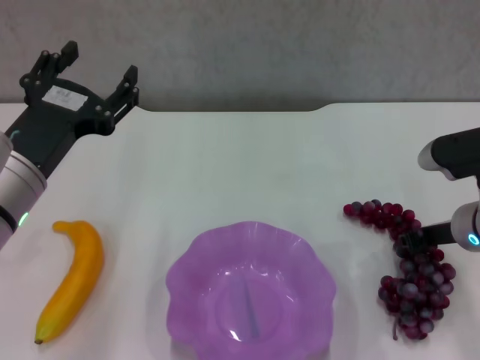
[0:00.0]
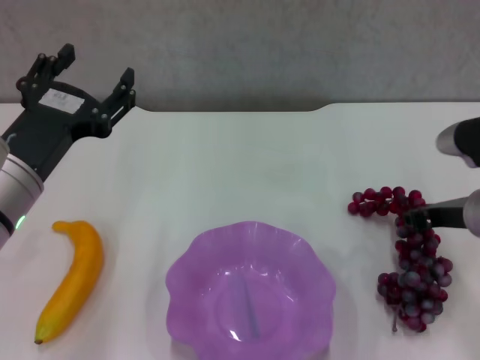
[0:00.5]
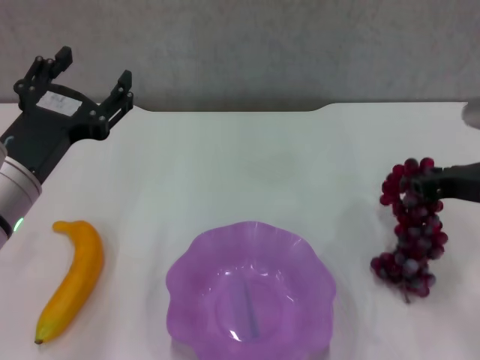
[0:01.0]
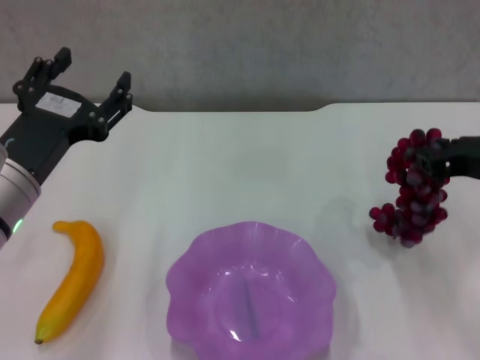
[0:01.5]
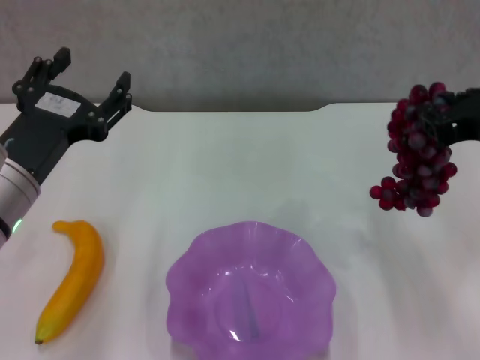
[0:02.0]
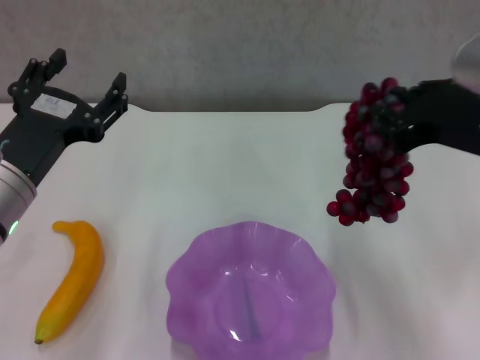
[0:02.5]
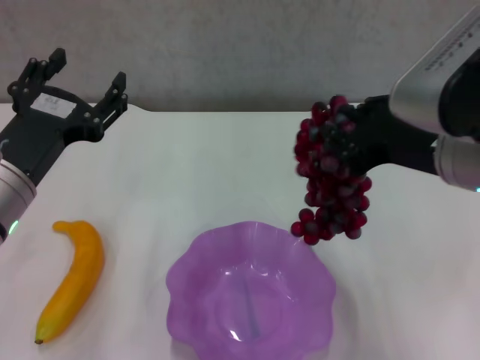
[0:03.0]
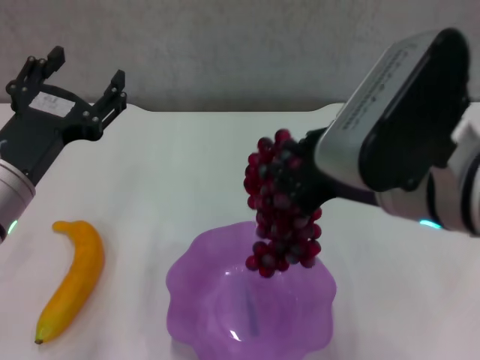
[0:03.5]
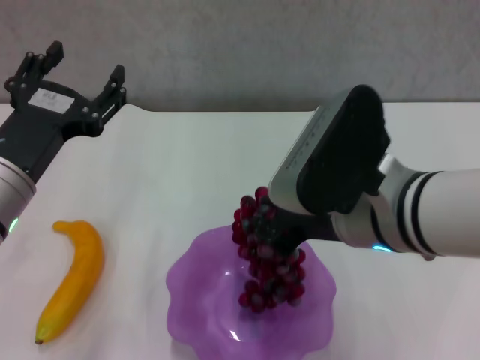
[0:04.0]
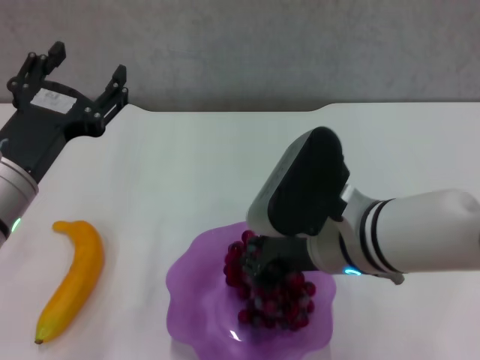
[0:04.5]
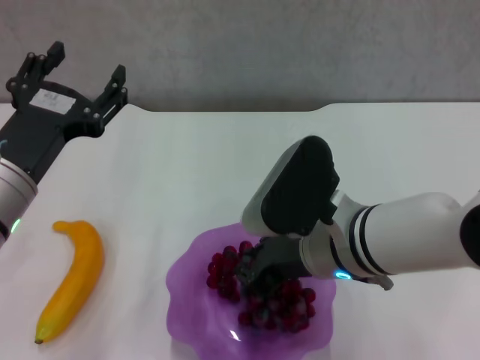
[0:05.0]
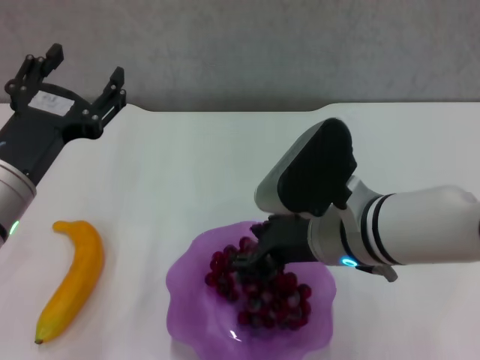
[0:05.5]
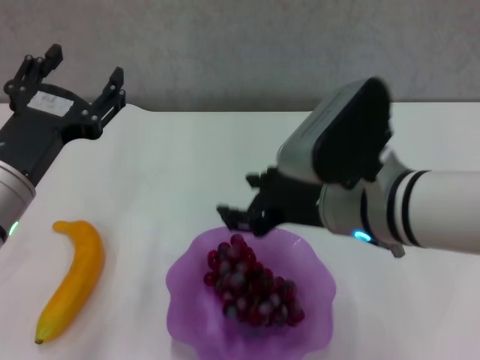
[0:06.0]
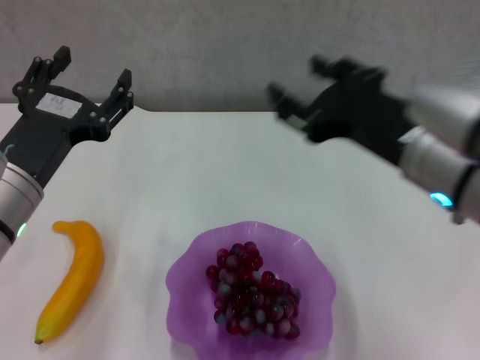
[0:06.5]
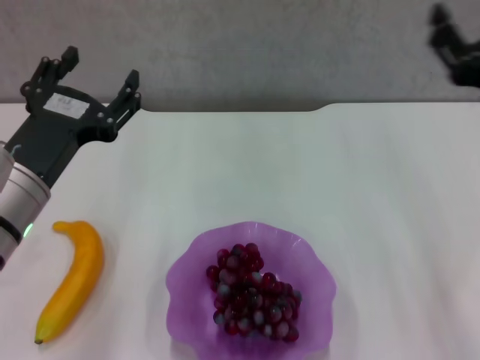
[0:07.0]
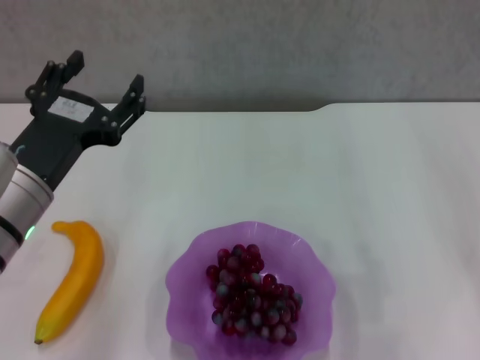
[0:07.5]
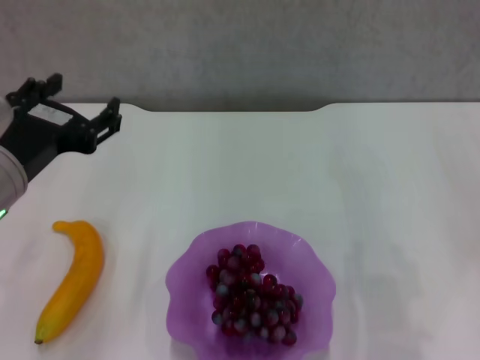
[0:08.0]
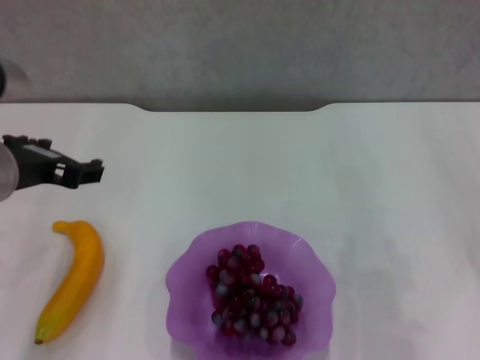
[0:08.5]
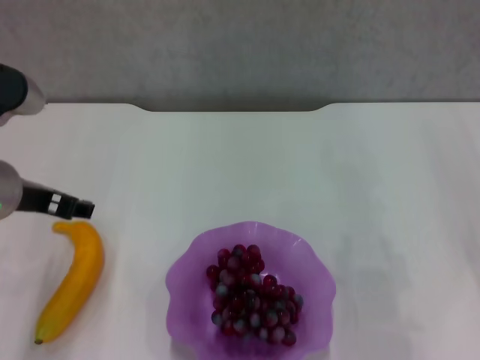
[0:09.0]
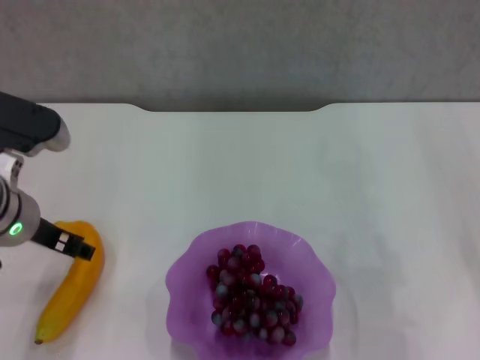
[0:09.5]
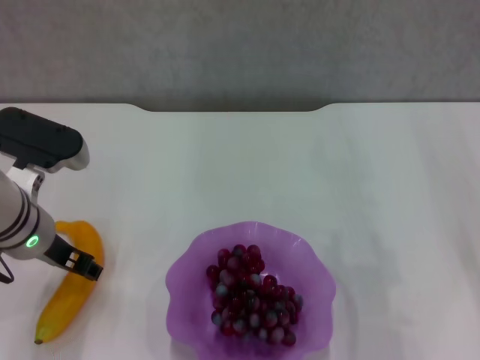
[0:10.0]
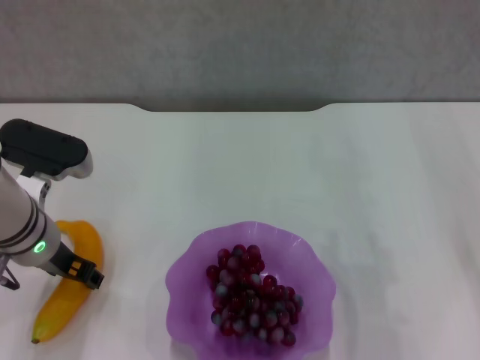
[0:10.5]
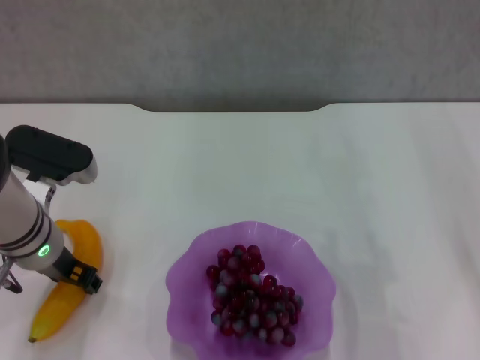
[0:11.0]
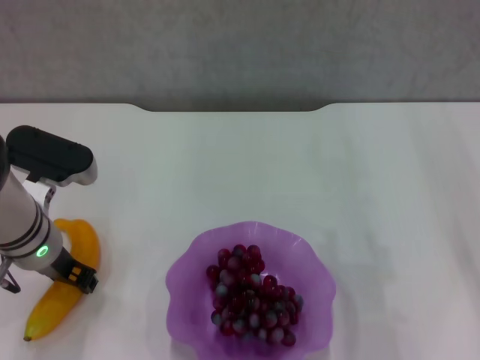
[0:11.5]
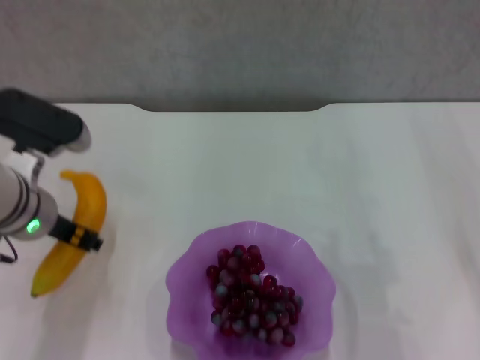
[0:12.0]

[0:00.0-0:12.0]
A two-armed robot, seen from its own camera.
Step, 0:00.0 to 0:05.5: Place the grape in the purple plate with right gripper.
Step, 0:06.0 to 0:11.0: Grasp the banana with left gripper.
0:00.0 to 0:02.0: The right gripper travels upward by approximately 15 cm.
0:02.0 to 0:04.0: The right gripper shifts approximately 15 cm to the left.
0:04.0 to 0:06.0: The right gripper opens its fingers.
0:06.0 to 0:08.0: The right gripper goes some 20 cm to the right.
0:08.0 to 0:10.0: The left gripper travels forward and downward by some 10 cm.
0:10.0 to 0:12.0: The left gripper closes up.

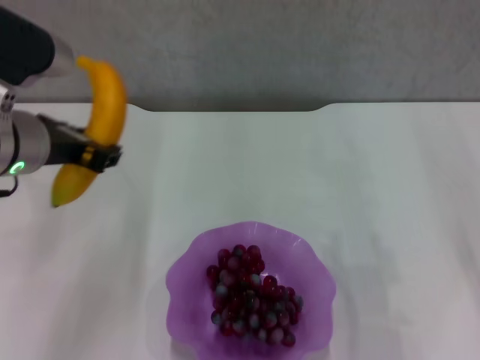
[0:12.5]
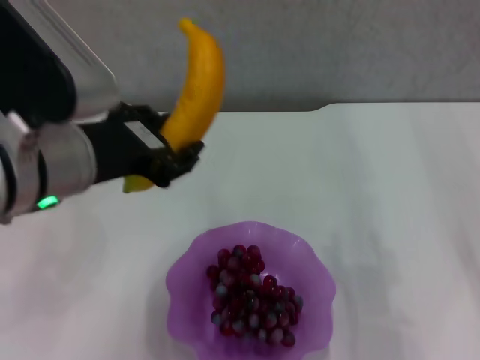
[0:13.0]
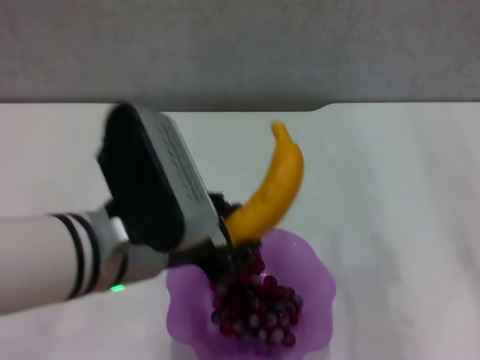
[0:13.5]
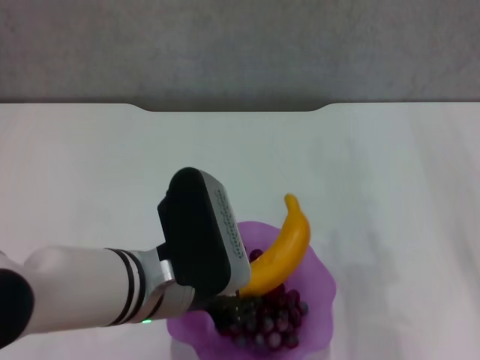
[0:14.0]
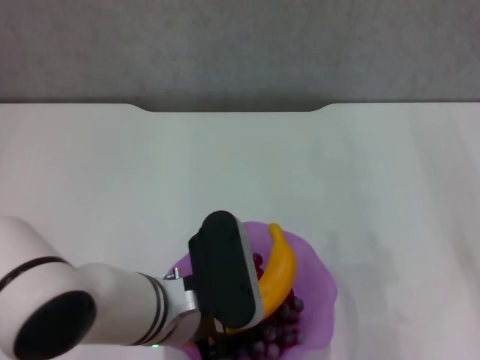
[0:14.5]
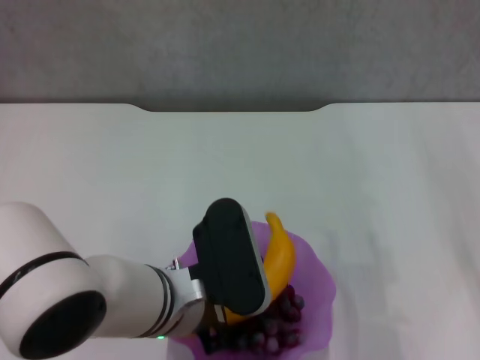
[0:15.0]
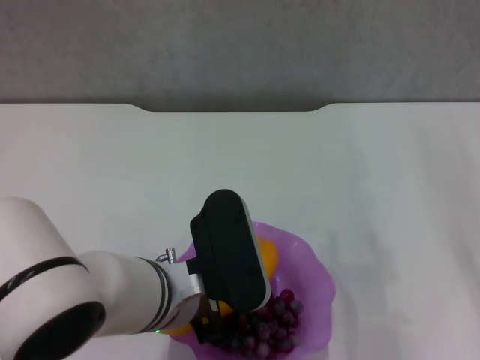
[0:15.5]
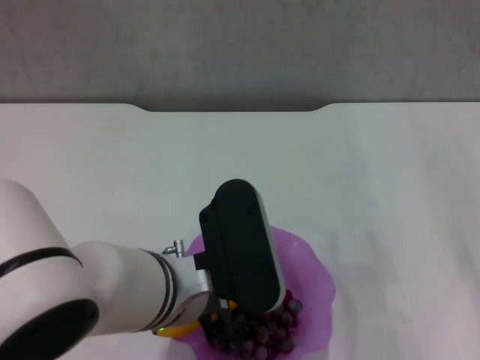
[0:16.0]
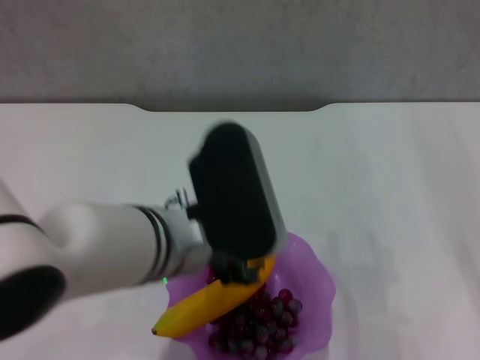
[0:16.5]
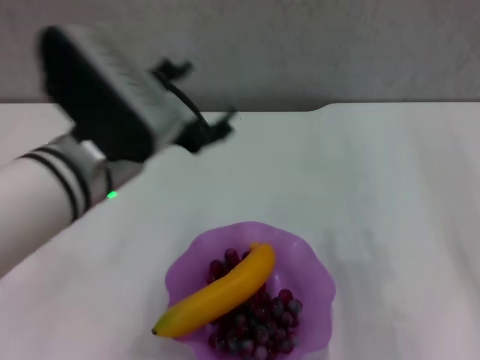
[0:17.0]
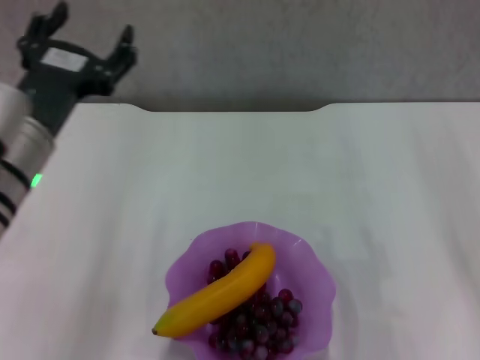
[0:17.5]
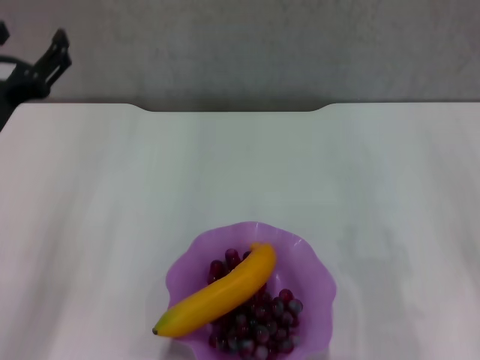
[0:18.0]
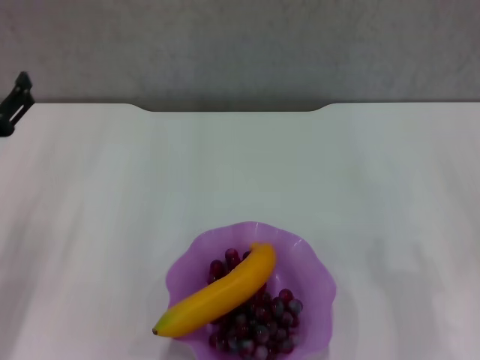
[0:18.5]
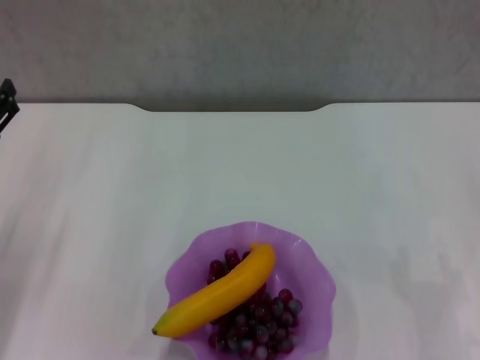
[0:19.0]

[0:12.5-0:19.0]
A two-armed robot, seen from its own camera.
Step, 0:12.5 to 0:16.0: Place the banana in the purple plate with left gripper.
0:12.5 to 0:14.5: The left gripper goes some 20 cm downward, to the right and backward.
0:14.5 to 0:17.0: The left gripper moves upward, some 10 cm, and opens its fingers.
0:17.0 to 0:19.0: The left gripper travels to the left and downward by approximately 20 cm. Meanwhile the right gripper travels downward by approximately 10 cm.

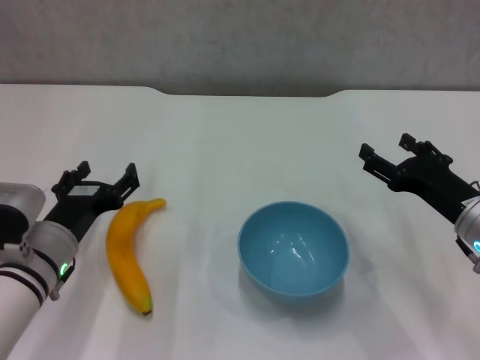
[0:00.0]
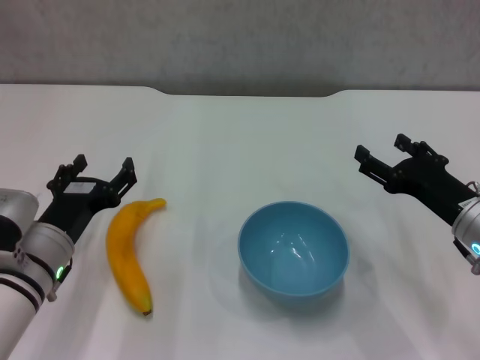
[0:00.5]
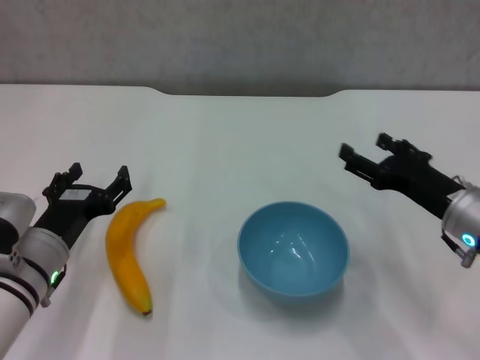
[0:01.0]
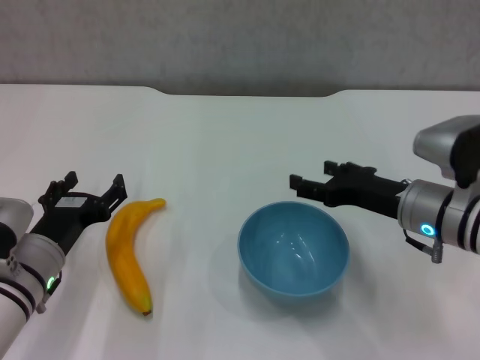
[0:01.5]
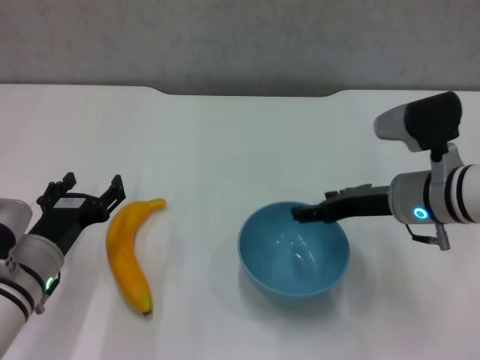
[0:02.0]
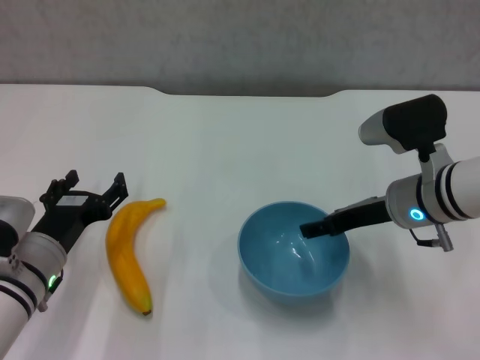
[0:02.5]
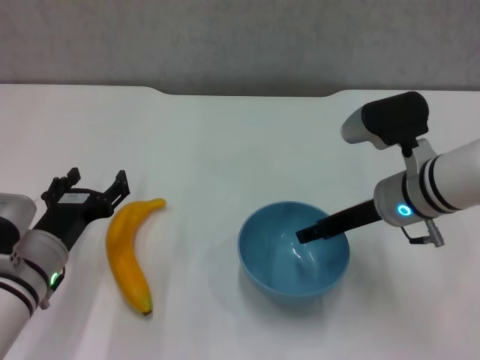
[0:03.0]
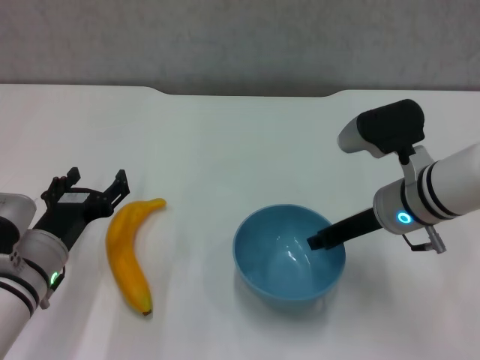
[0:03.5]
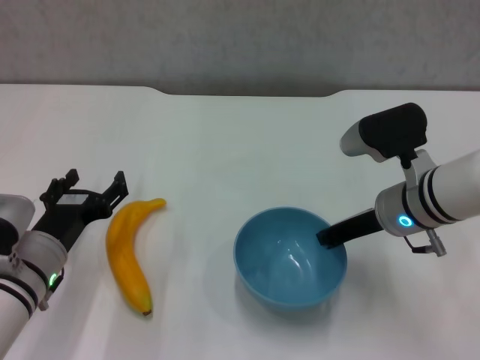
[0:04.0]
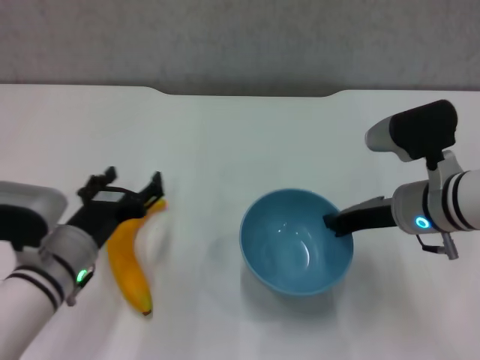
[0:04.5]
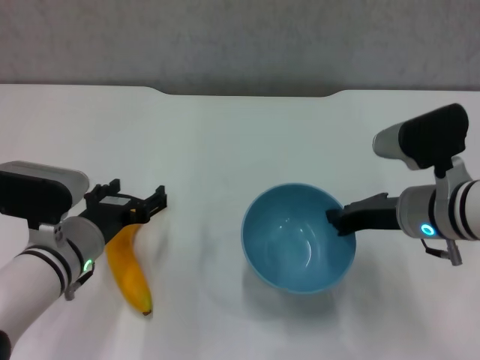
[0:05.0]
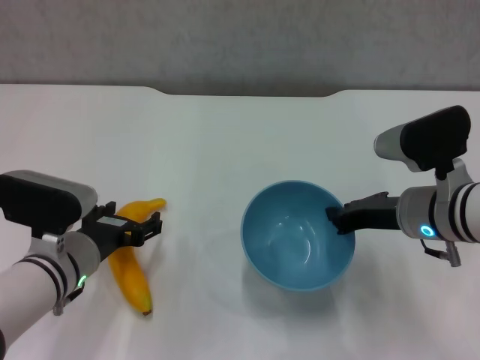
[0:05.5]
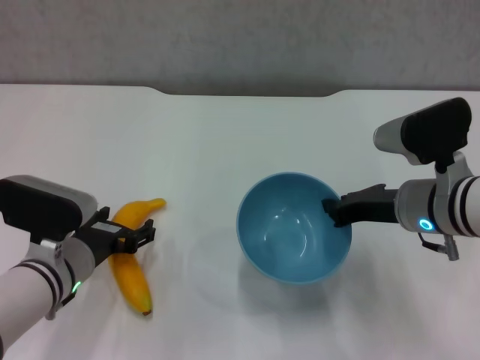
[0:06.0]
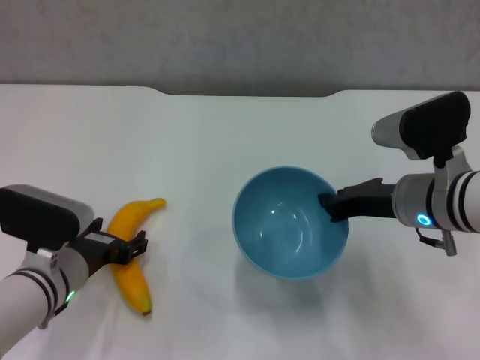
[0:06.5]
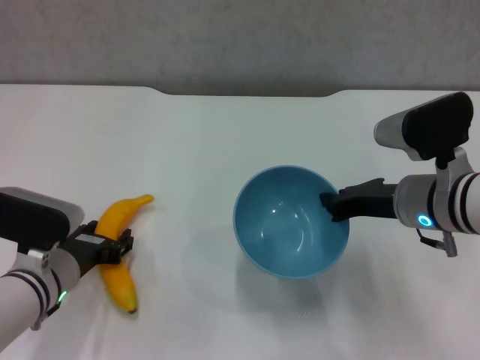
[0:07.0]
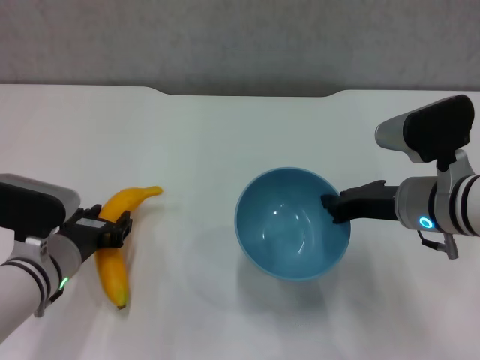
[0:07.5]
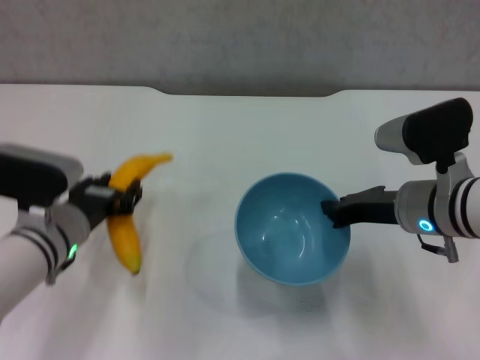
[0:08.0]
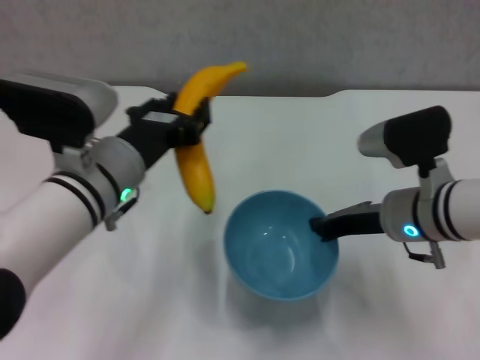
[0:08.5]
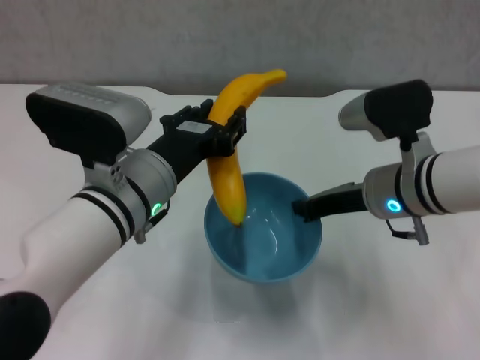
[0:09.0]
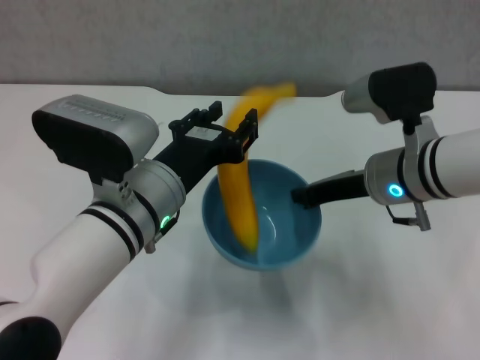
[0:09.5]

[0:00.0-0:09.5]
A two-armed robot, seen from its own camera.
Step, 0:00.0 to 0:03.5: Grasp the blue bowl with right gripper.
Step, 0:04.0 to 0:04.5: Lift the blue bowl with right gripper.
Step, 0:05.0 to 0:07.0: Grasp the banana with left gripper.
0:00.0 to 0:02.0: The right gripper is displaced to the left by some 5 cm.
0:02.0 to 0:04.0: The right gripper closes.
0:05.5 to 0:07.5: The left gripper closes up.
0:07.5 to 0:09.5: The left gripper is displaced to the right and upward by some 15 cm.
